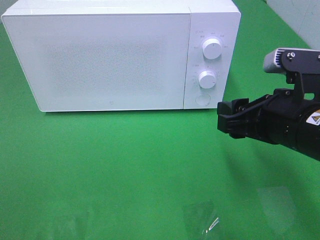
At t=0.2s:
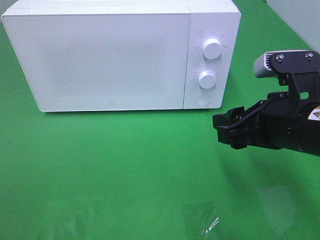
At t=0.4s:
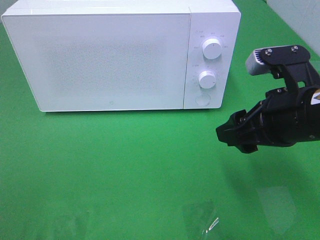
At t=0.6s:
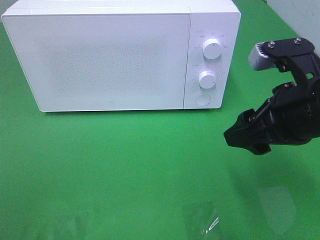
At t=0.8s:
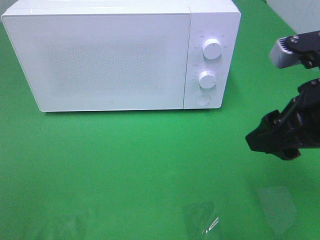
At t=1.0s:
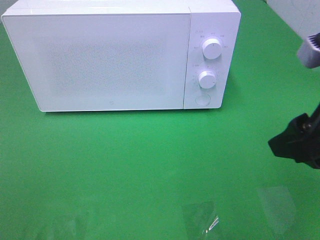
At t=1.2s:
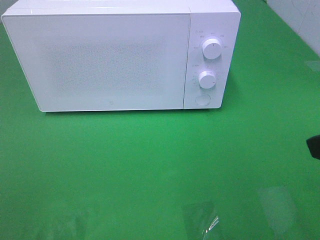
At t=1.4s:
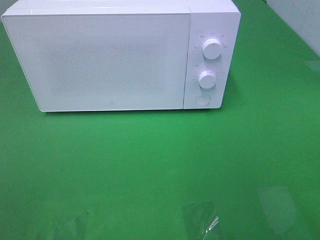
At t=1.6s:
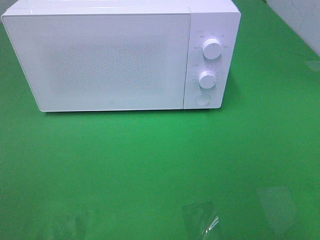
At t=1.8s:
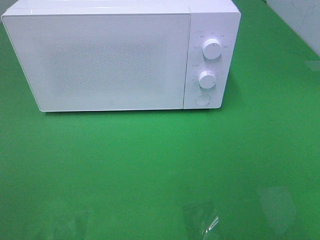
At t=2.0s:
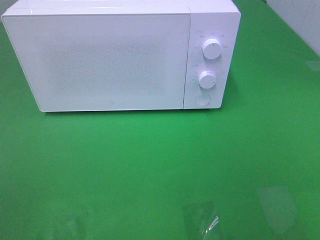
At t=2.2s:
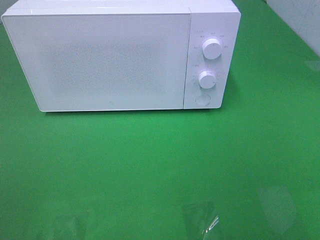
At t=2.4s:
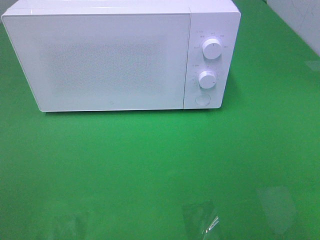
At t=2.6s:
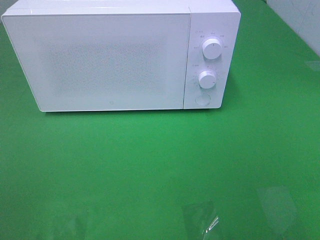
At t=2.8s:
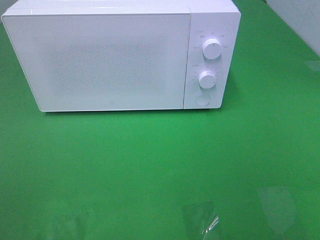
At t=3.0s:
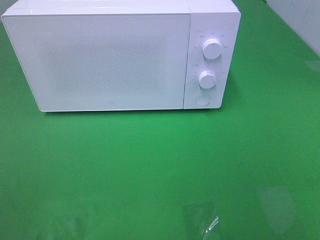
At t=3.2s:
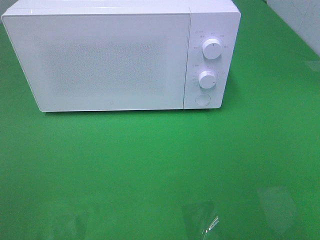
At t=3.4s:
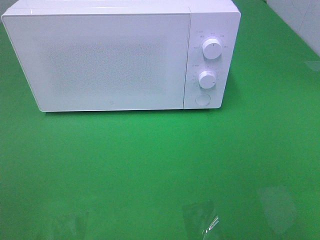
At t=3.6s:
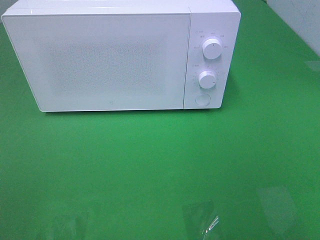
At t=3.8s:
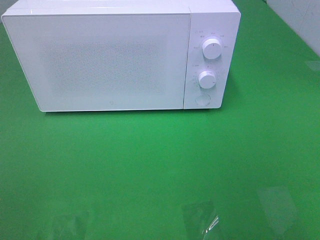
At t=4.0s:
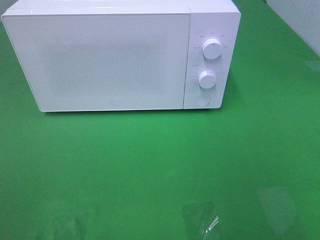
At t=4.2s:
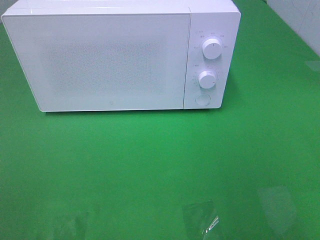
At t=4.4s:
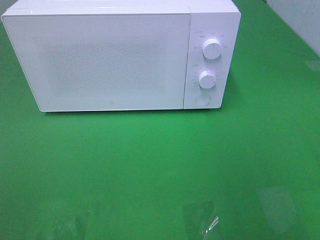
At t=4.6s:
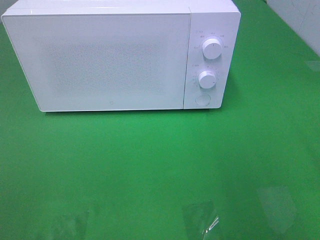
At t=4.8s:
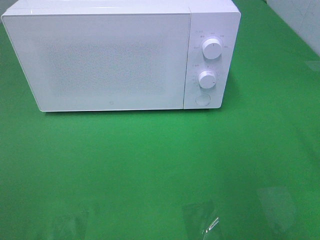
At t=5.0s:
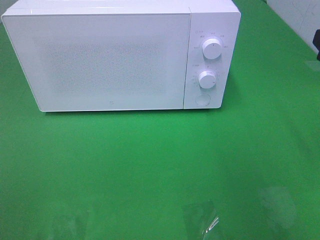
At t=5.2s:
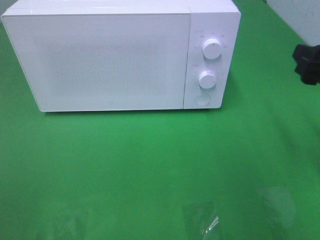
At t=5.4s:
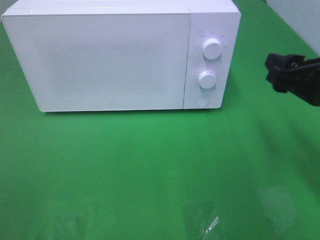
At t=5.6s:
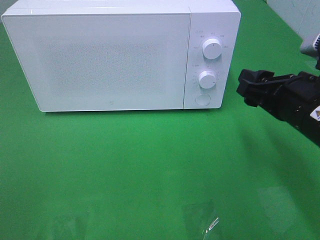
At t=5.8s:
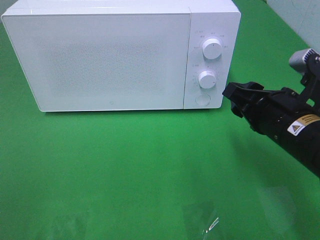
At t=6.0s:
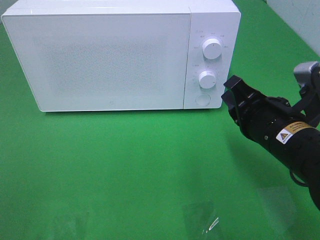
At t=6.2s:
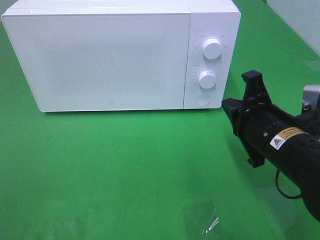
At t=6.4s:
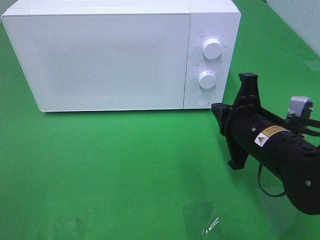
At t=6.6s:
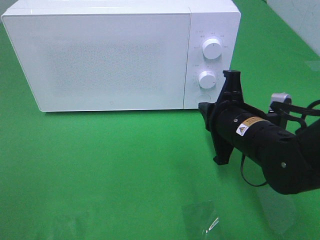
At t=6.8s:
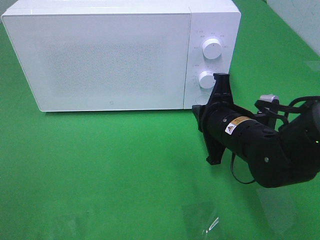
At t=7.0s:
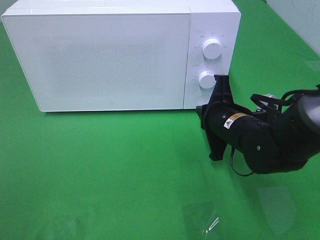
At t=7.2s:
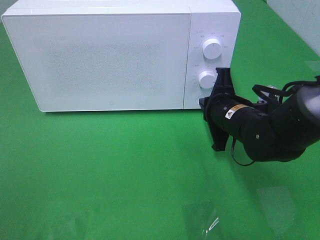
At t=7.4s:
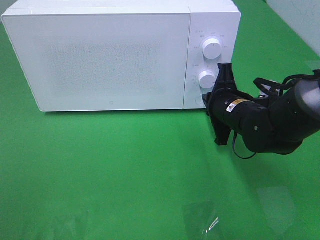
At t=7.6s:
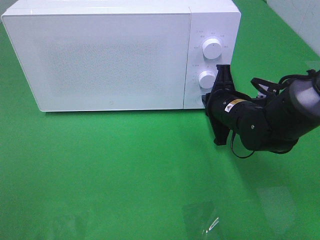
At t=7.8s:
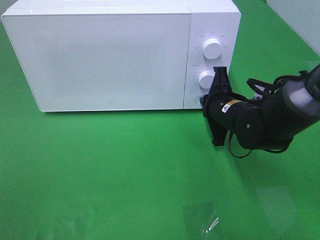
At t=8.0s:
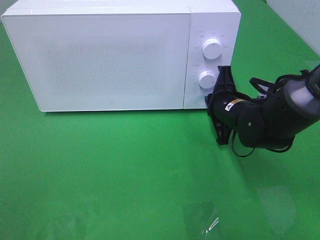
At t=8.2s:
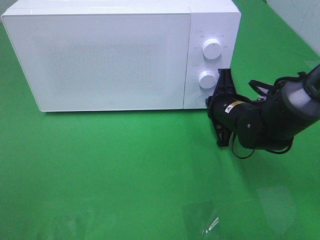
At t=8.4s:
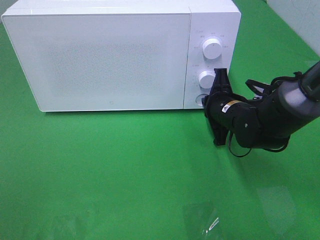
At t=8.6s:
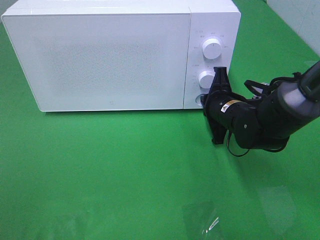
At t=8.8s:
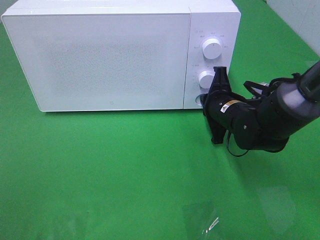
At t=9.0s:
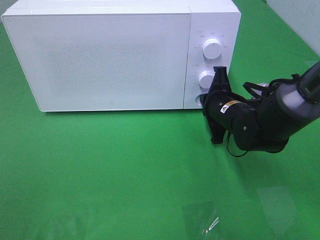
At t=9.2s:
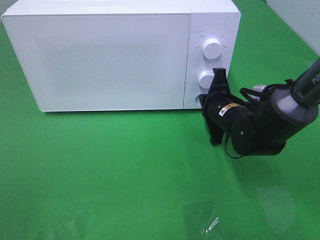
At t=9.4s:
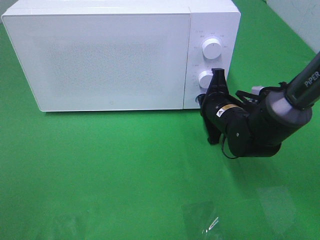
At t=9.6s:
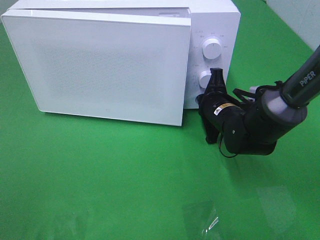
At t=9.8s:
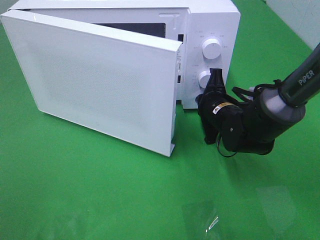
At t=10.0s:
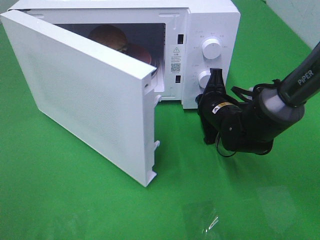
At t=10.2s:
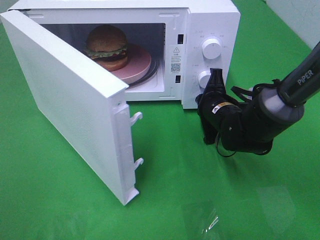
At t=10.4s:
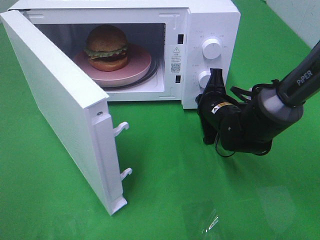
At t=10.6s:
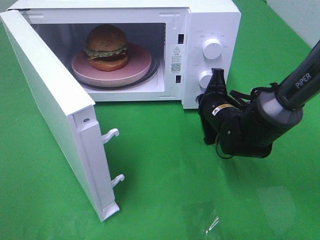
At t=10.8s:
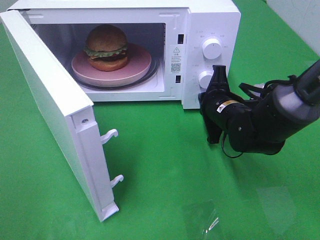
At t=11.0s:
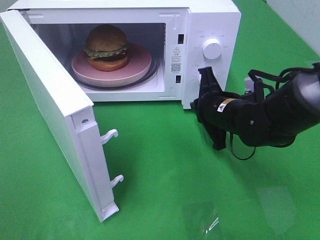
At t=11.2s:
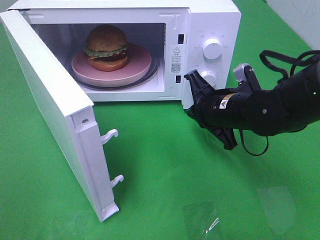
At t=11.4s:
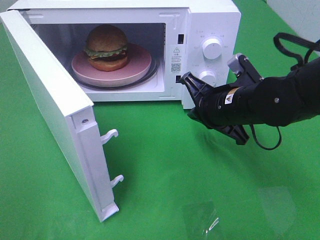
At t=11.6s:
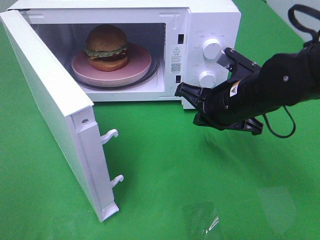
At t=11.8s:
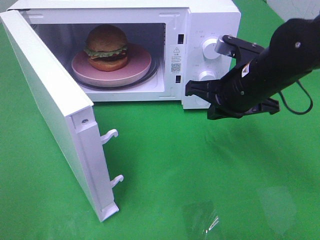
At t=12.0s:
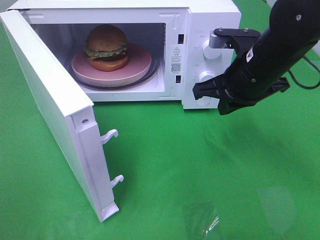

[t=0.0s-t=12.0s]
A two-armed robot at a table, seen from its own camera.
Task of the whole recording: Heat the burger.
Step, t=0.0s to t=10.8s: Right hand: press the switch.
t=0.0s to t=1.6s: The right gripper heads backward, upward and to the right, covering roughly 20 cm.
t=4.4s to t=6.0s: The right gripper goes some 20 cm downward, to the left and forward, and closes up.
t=6.0s to t=7.6s: The right gripper heads forward and downward, covering about 15 cm.
t=7.6s to t=9.0s: There are only small adjustments of the grippers.
t=10.4s to t=12.0s: The right gripper is displaced upward by some 15 cm.

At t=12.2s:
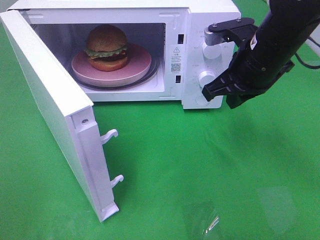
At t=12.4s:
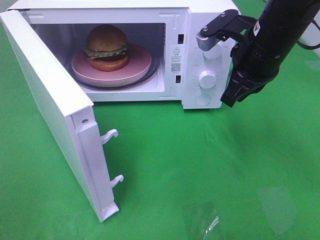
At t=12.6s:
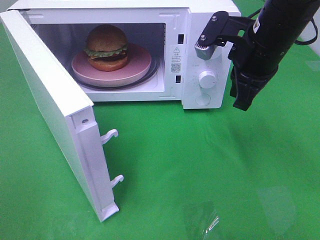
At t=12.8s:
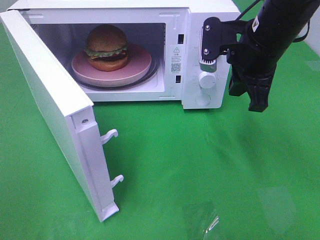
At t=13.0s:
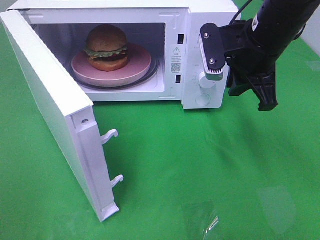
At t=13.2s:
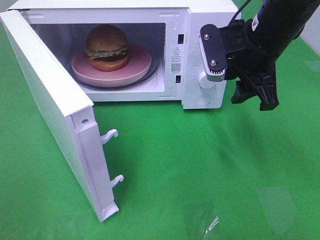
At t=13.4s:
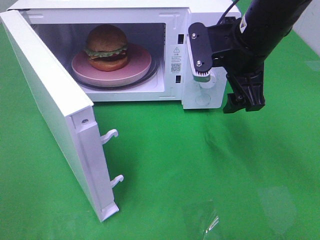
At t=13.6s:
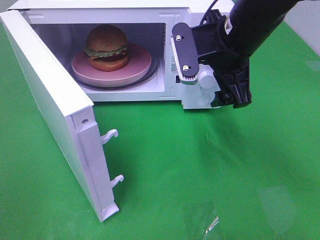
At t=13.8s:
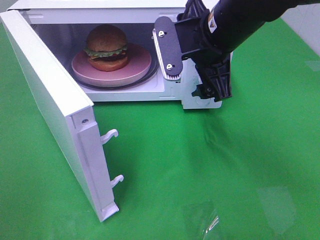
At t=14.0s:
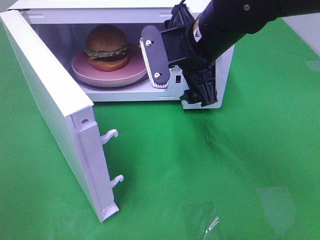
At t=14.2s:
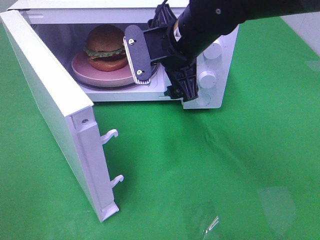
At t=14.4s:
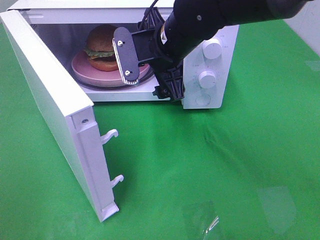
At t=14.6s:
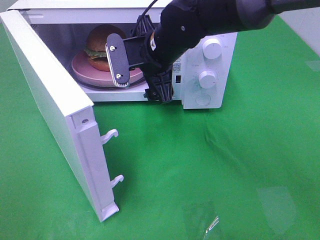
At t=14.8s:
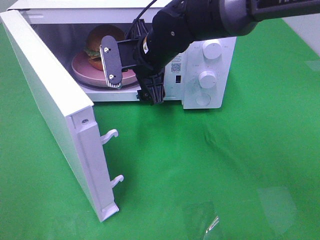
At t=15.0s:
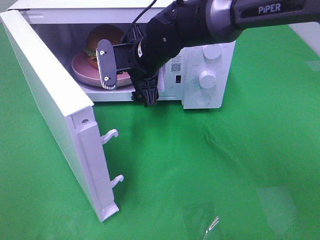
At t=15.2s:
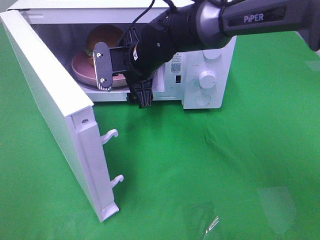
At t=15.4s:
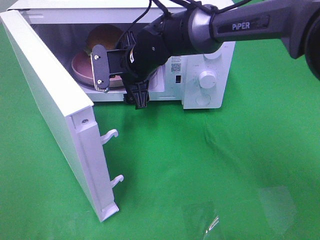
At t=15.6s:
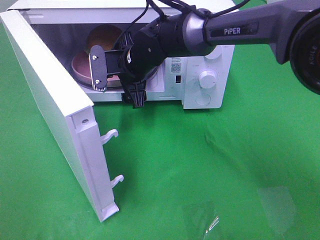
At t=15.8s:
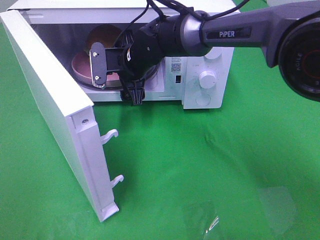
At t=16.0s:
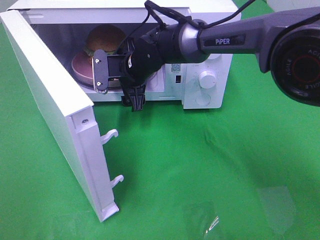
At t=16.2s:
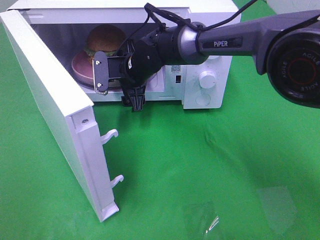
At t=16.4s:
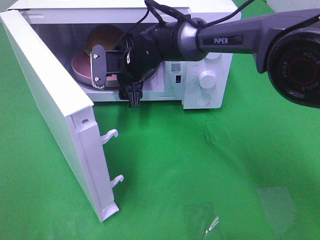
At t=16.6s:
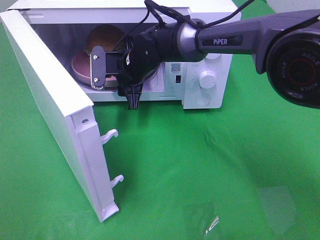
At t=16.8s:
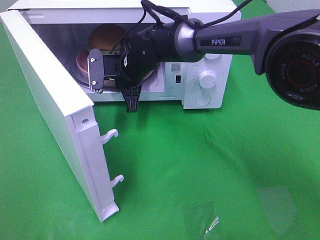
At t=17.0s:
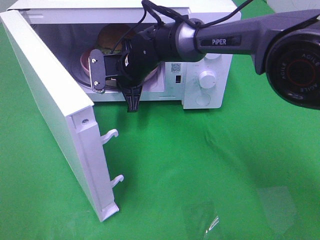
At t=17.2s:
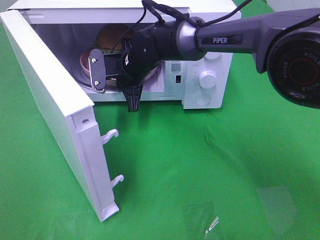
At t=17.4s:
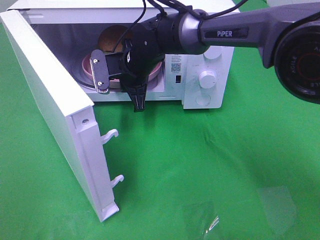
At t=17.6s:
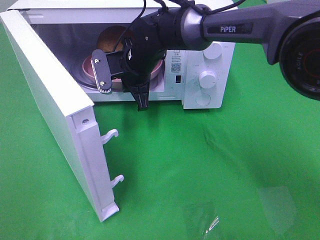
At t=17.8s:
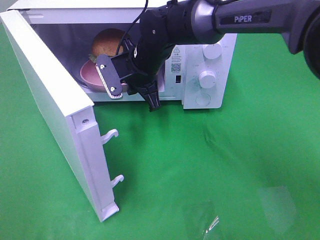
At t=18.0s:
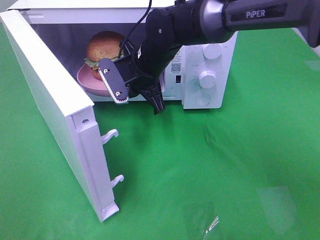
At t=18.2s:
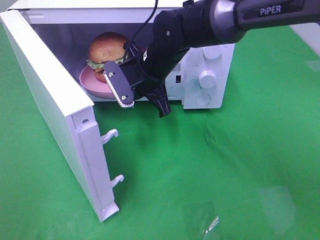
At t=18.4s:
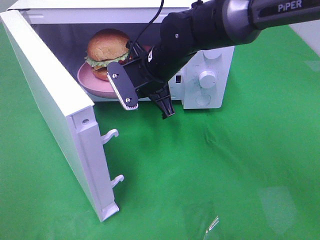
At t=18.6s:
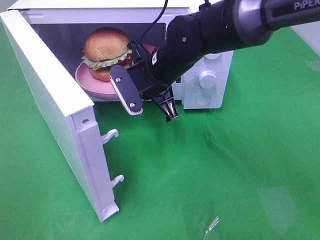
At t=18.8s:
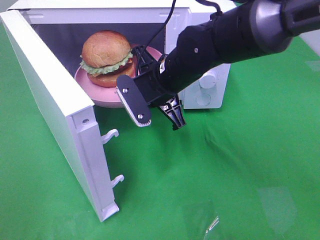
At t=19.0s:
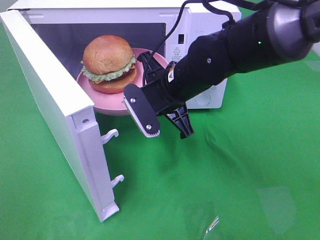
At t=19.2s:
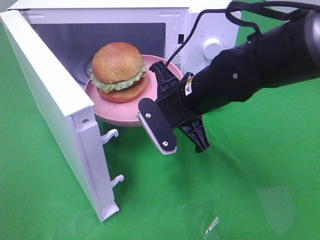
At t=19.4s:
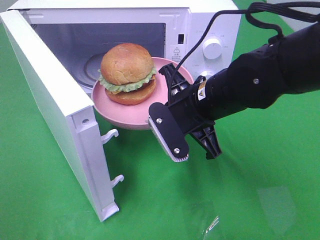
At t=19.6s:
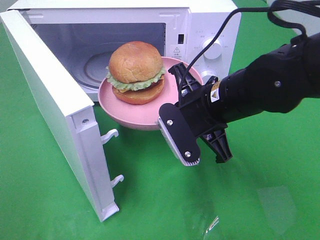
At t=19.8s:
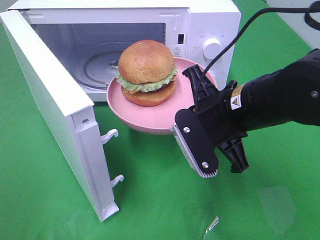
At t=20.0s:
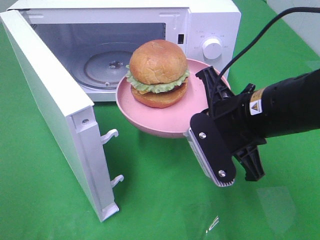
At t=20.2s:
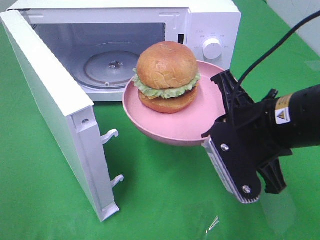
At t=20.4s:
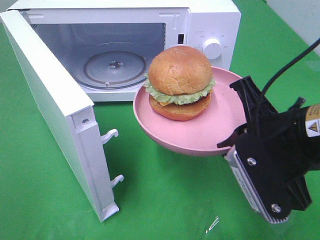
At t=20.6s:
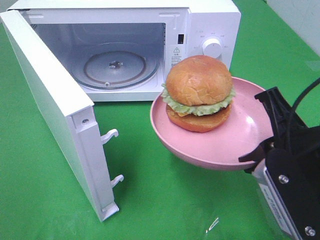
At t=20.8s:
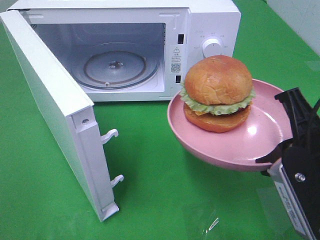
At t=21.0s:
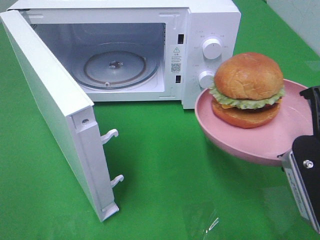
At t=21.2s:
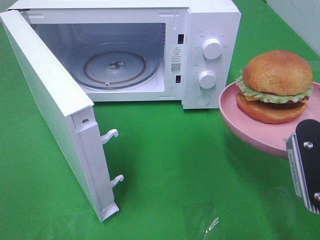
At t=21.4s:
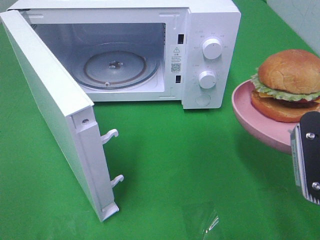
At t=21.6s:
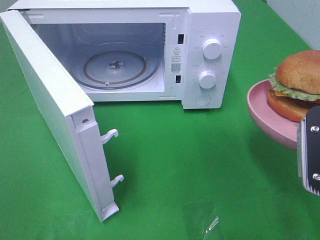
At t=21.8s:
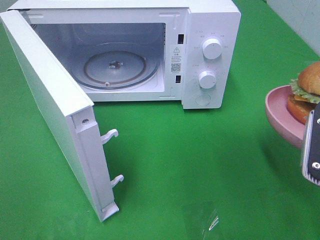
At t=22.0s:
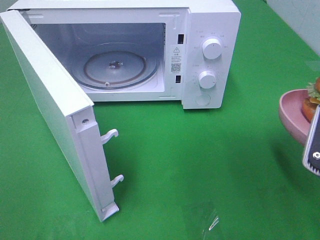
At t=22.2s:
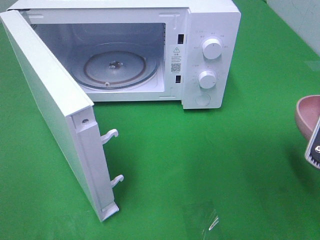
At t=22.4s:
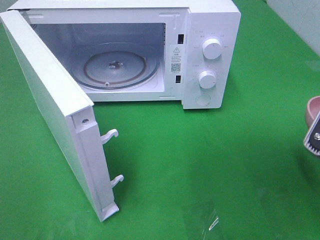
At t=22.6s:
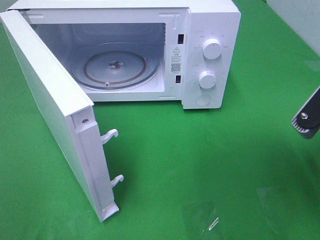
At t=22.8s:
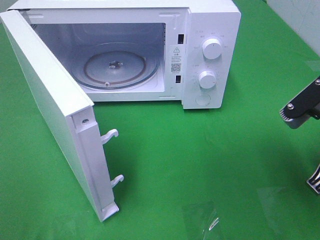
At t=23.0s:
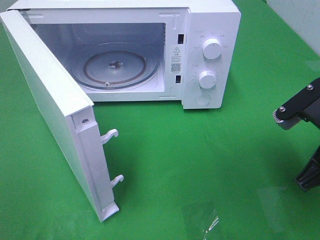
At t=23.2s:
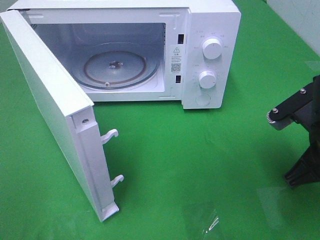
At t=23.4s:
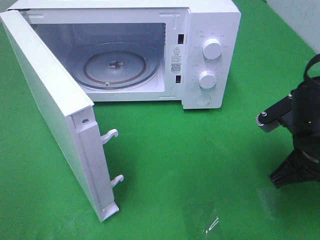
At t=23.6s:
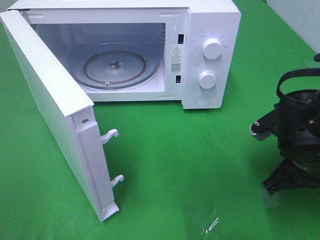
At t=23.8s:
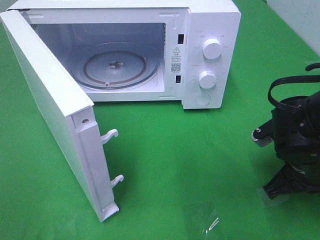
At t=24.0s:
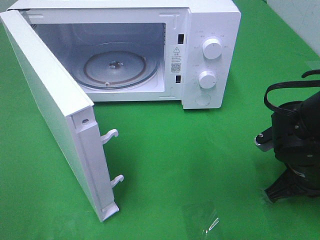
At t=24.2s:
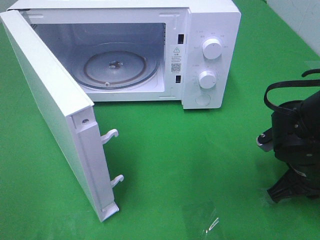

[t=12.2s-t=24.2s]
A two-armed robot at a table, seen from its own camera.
Task of the whole recording: Heat the burger.
Step, t=12.2s to t=16.8s: Right hand: grab the plate with the hamburger.
t=12.2s to t=13.8s: The right gripper goes approximately 5 cm to the left, and opens up.
t=13.8s to t=15.2s: The right gripper moves to the left, downward and forward, approximately 15 cm.
t=15.2s to t=16.6s: The right gripper closes up.
t=16.6s to t=18.2s: The right gripper shifts by about 5 cm, and closes up.
t=18.2s to t=19.8s: The right gripper moves backward and to the right, approximately 20 cm.
t=19.8s to t=21.2s: The right gripper heads to the right and backward, covering about 15 cm.
t=22.6s to t=24.2s: The right gripper heads downward and forward, covering approximately 15 cm.
